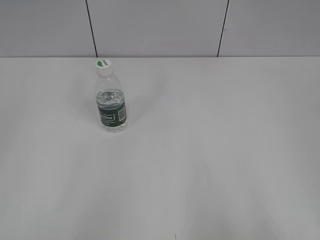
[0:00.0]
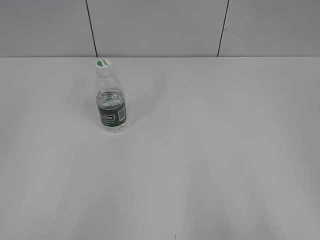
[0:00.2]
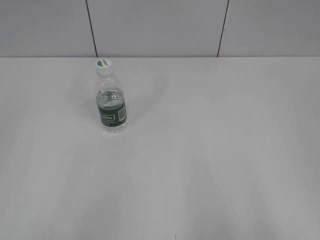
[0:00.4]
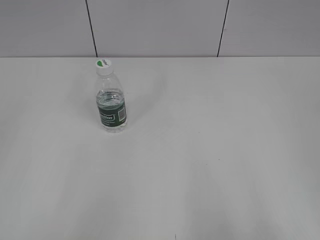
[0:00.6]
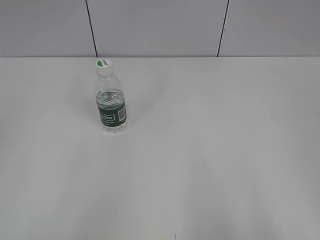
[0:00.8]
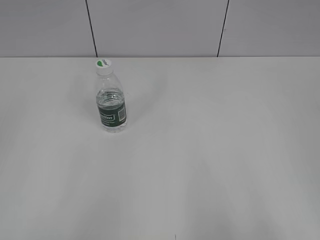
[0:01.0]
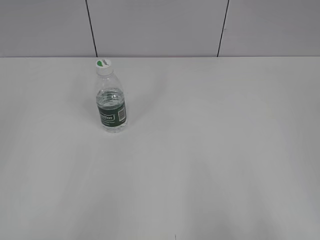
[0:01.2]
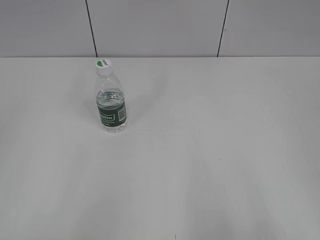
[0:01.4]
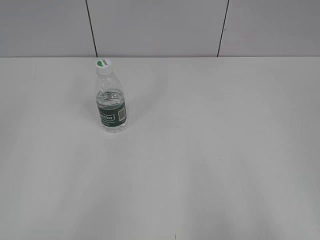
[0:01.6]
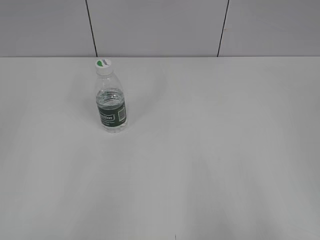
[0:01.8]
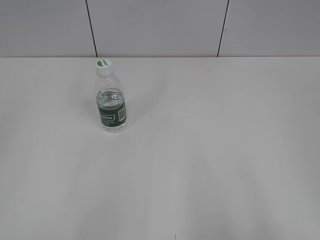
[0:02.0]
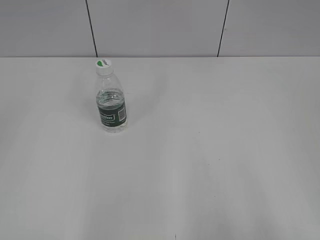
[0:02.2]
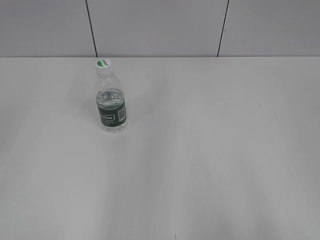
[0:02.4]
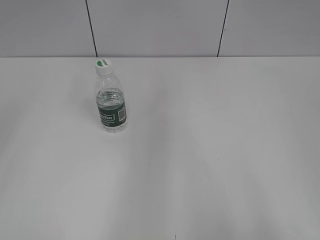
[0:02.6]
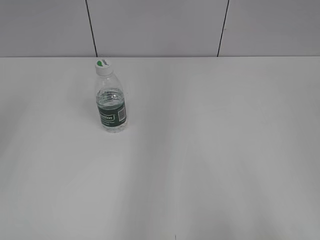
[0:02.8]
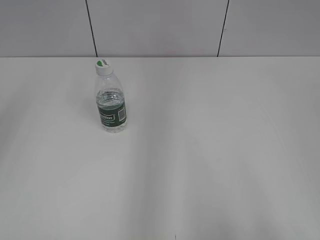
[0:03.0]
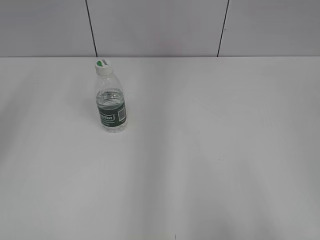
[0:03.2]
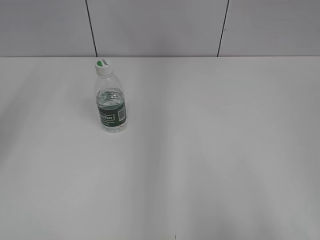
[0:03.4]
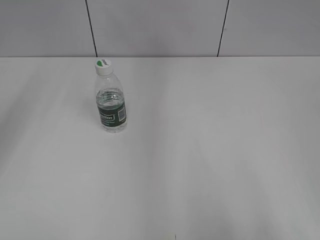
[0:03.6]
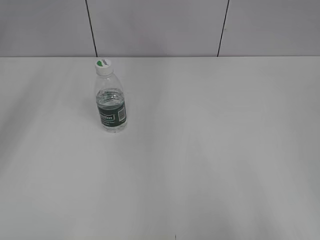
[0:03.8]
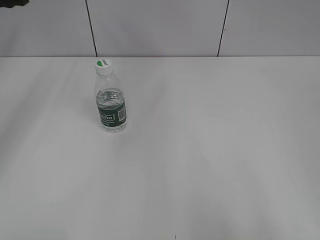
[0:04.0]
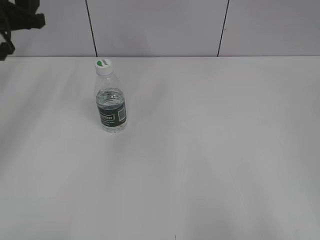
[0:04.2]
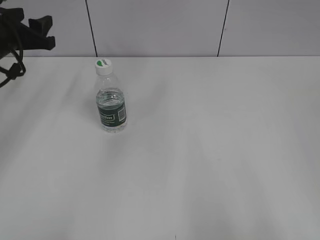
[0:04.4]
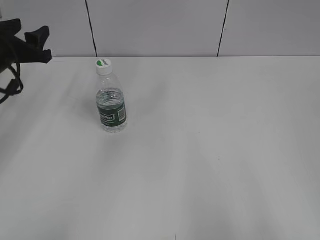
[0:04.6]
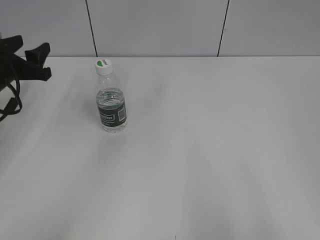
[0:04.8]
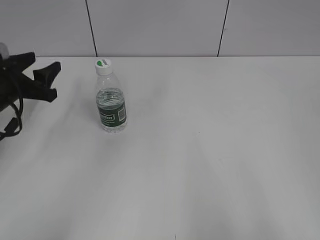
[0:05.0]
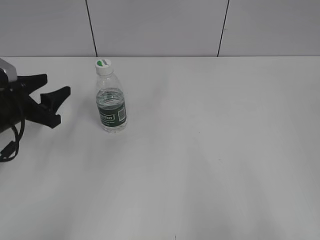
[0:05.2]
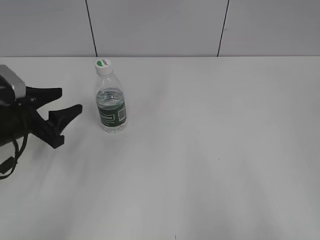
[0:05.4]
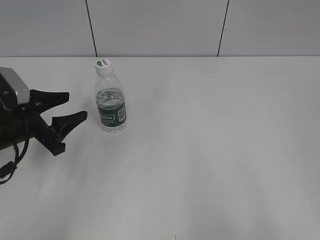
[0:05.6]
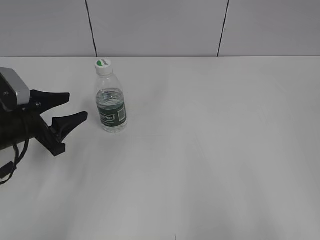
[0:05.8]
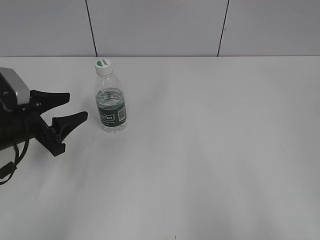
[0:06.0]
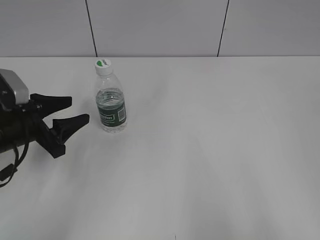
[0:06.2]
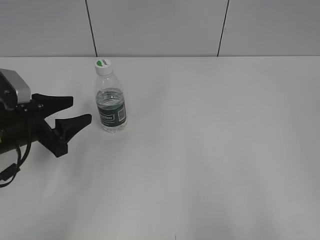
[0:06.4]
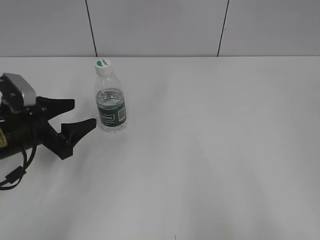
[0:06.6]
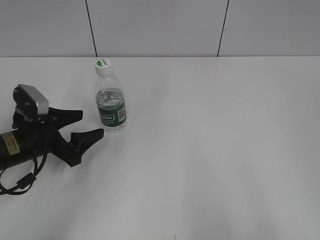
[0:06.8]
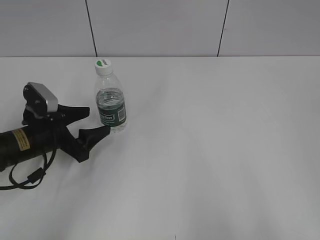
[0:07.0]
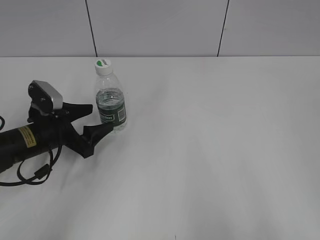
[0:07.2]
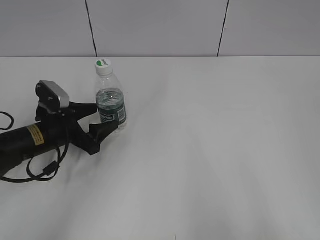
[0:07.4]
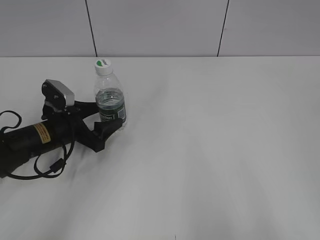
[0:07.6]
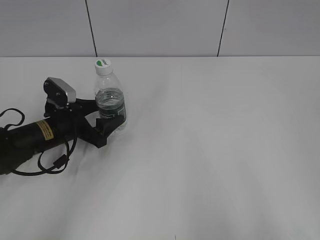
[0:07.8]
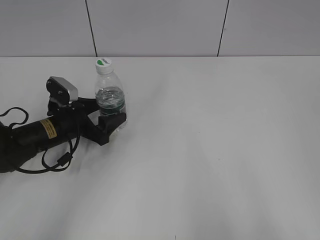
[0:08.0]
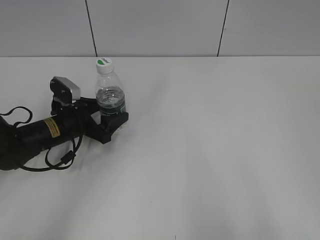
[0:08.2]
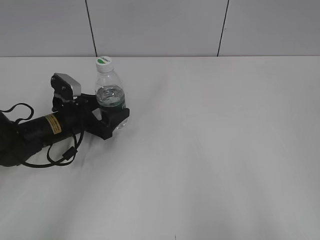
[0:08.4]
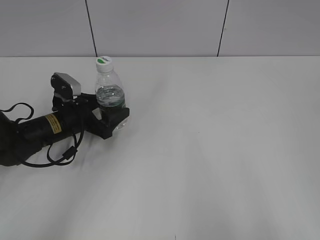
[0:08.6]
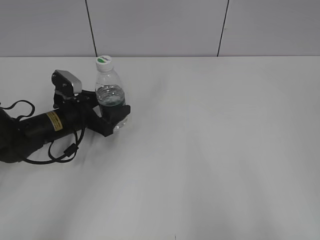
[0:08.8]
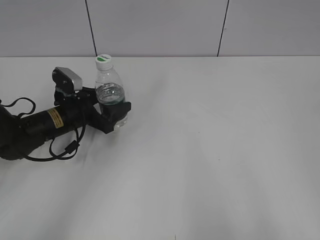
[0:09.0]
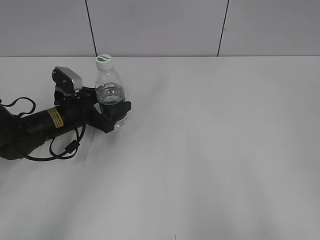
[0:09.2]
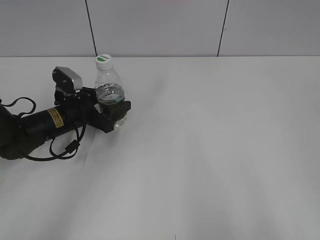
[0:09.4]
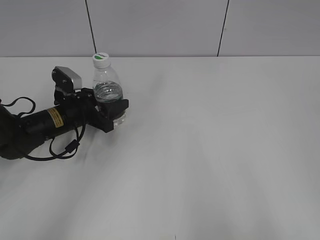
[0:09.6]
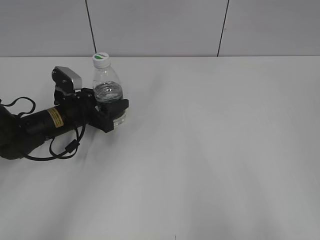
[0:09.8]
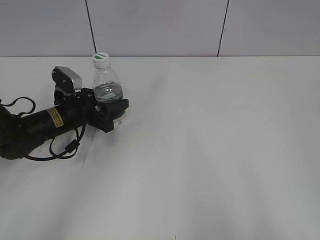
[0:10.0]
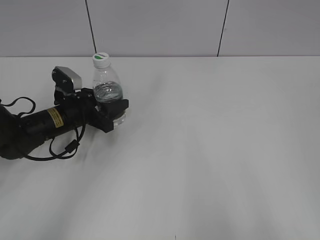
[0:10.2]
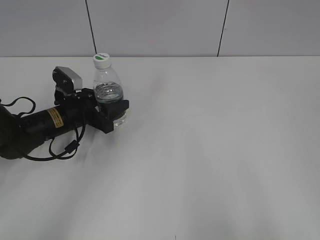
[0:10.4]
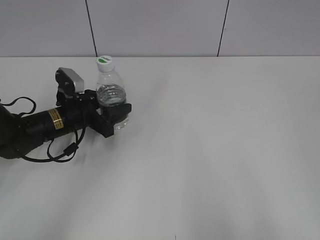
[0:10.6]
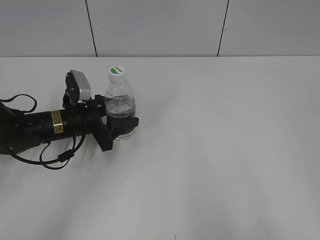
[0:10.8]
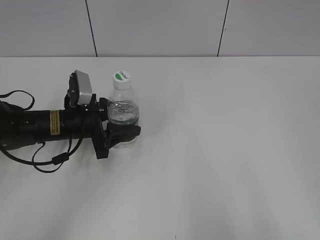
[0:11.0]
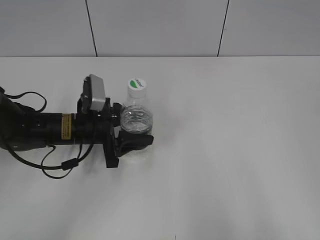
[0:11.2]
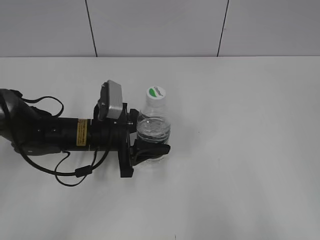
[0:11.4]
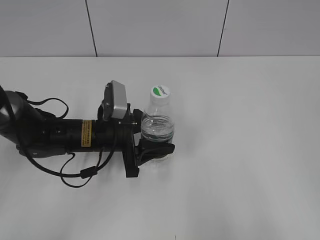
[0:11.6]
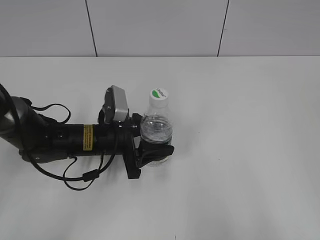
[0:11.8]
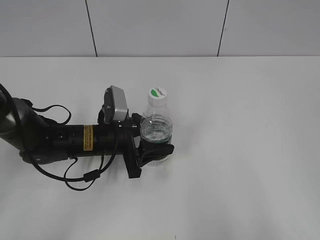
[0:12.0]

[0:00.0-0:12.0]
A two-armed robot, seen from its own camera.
Step, 0:00.0 to 0:10.0: Grasp the bottle and move it to the center of the table with the left gripper.
0:03.0 to 0:04.4: The left gripper moves forward and downward, some 30 cm.
0:04.4 to 0:06.0: The left gripper travels backward and downward by some 15 cm.
0:06.0 to 0:07.6: The left gripper moves downward, some 5 cm, and opens up.
0:07.6 to 0:09.0: The grippers move only a little.
0:09.0 to 0:10.4: The left gripper closes.
0:10.4 to 0:12.0: The left gripper heads to the right and backward, covering some 10 cm.

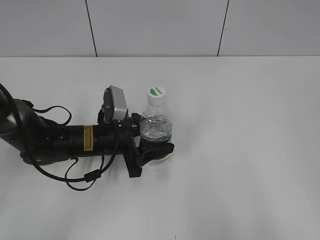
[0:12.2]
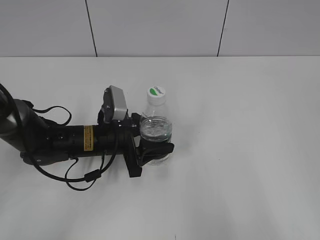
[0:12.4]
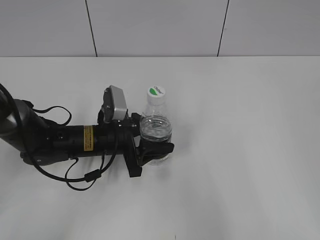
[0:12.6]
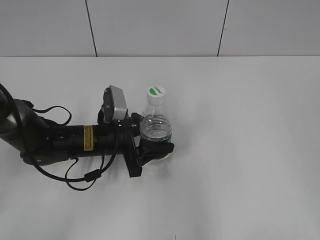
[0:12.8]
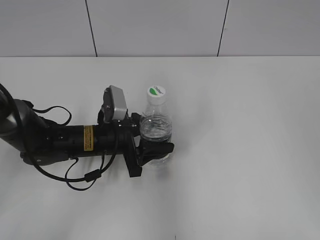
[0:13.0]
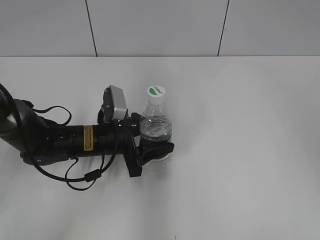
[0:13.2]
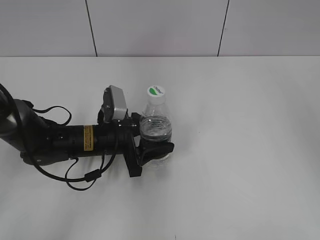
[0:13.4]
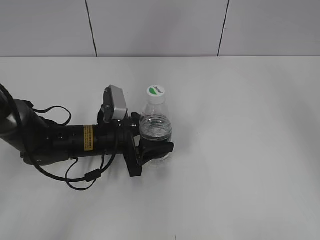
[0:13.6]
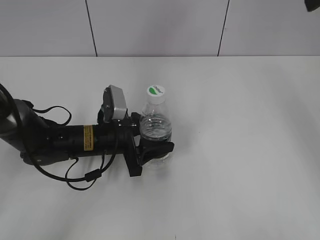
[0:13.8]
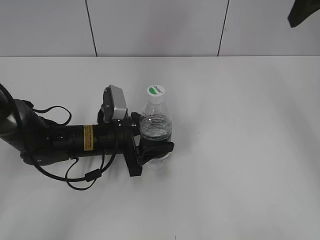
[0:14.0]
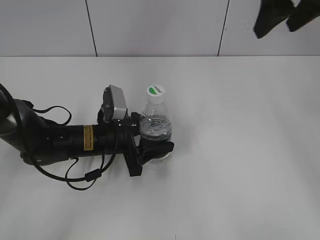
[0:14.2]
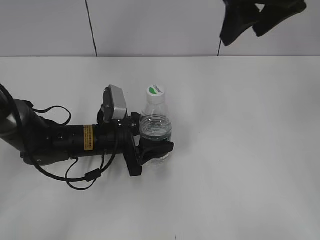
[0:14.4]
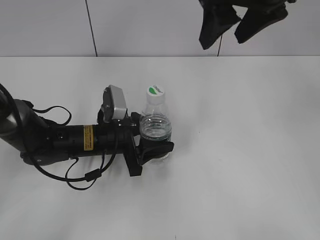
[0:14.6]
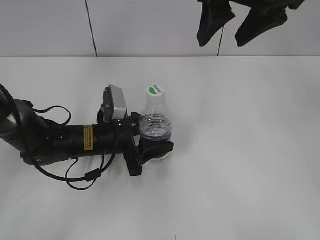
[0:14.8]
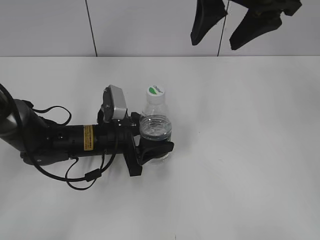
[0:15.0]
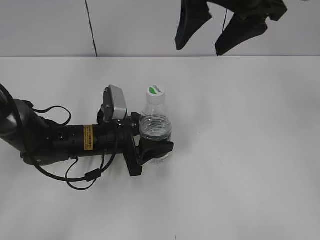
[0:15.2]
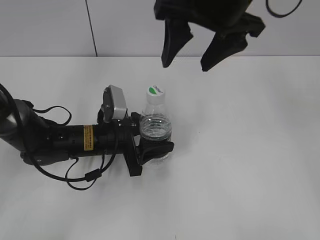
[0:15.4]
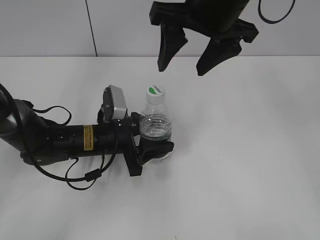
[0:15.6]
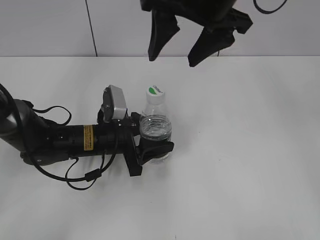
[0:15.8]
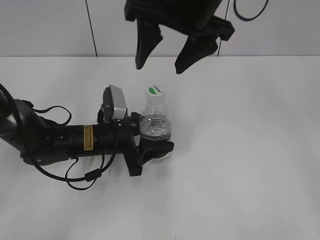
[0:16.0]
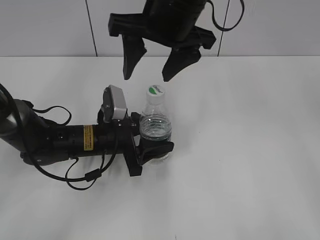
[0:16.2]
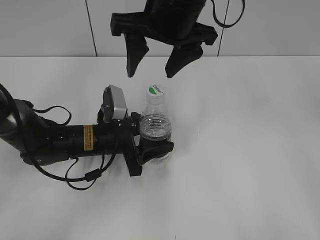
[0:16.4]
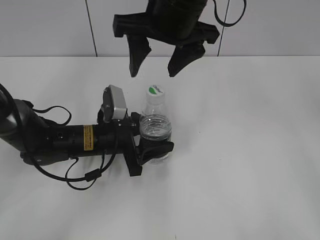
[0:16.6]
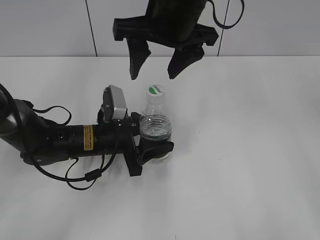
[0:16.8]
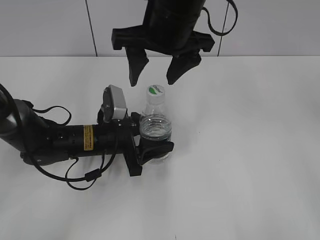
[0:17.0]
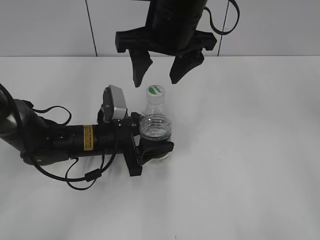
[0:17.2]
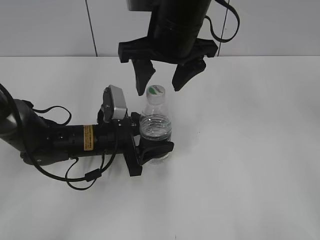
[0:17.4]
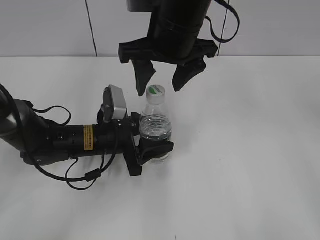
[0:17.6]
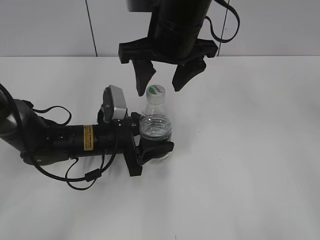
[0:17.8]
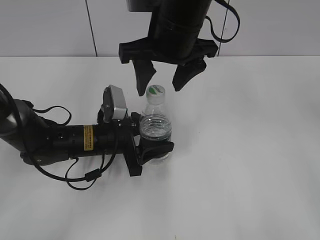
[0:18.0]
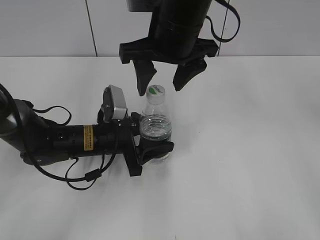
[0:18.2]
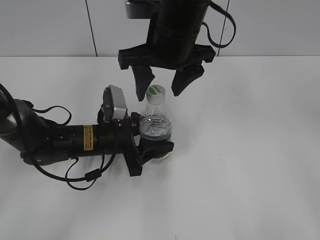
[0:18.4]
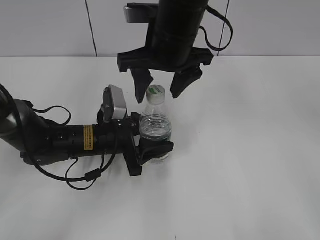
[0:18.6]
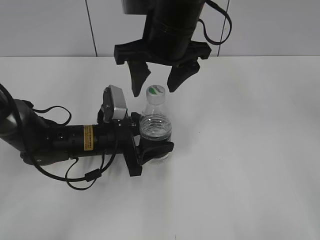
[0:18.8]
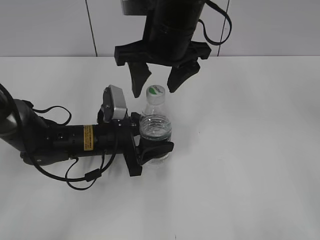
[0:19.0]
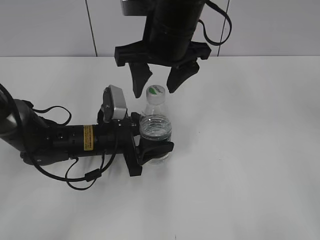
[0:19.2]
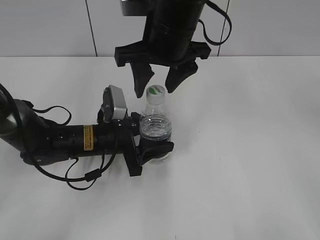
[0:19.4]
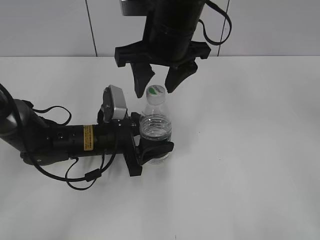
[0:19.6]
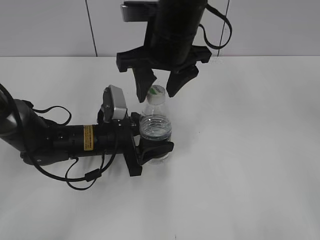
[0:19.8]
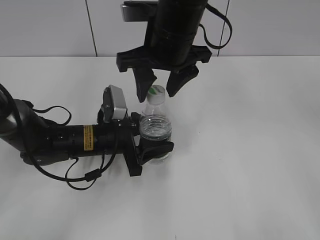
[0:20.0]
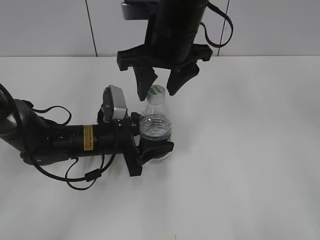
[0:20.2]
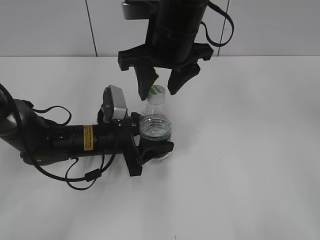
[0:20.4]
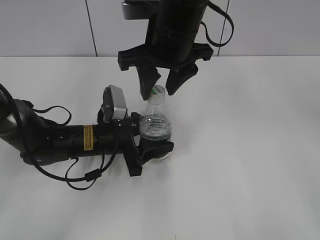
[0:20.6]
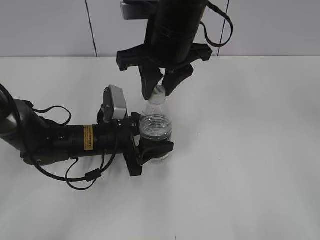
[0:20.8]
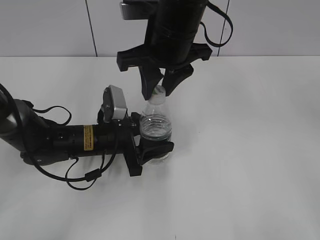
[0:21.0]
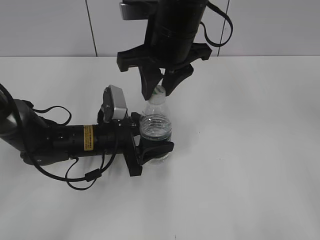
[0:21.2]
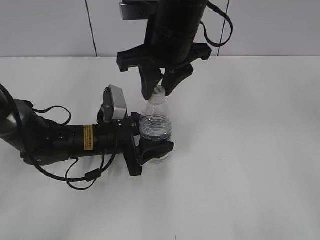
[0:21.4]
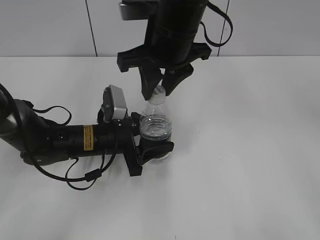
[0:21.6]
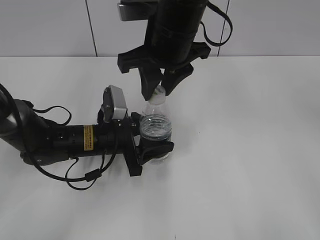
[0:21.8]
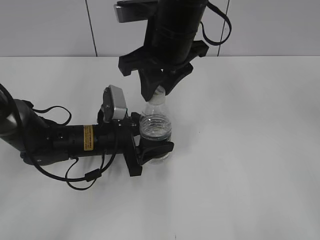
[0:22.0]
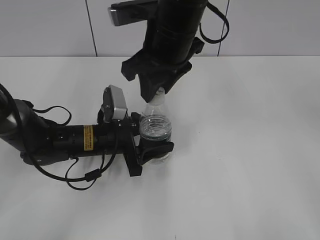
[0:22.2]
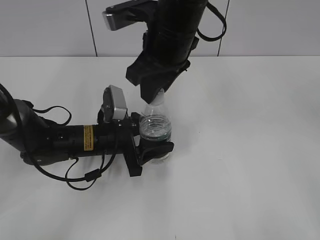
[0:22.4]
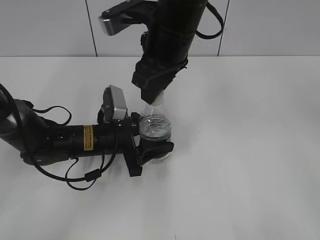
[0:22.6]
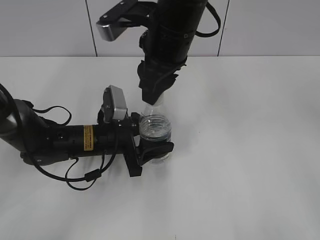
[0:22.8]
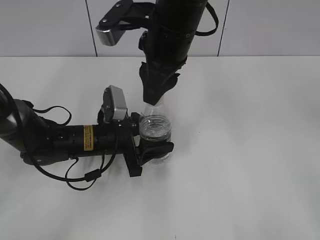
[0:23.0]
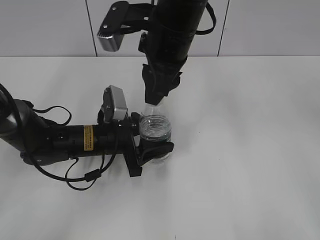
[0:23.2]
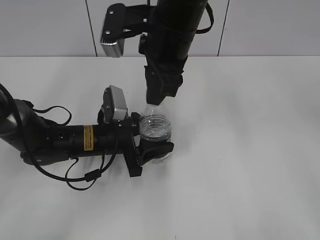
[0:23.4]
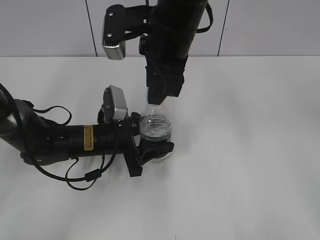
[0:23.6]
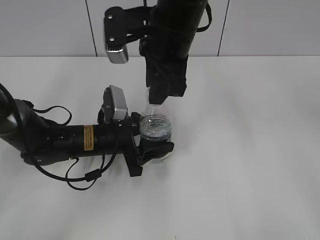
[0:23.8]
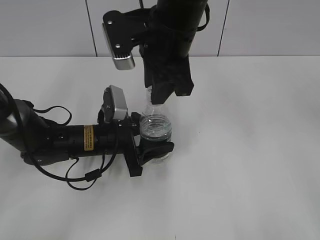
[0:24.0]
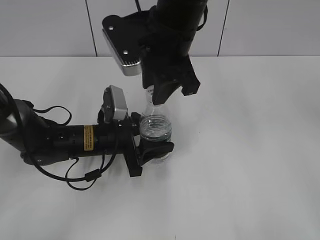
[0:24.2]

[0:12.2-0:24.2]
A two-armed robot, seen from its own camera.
0:12.2 to 0:13.8: The right gripper moves forward, some 35 cm.
0:13.8 to 0:15.2: The right gripper goes about 15 cm to the left.
0:15.2 to 0:16.6: The right gripper is displaced to the left by roughly 5 cm.
0:16.6 to 0:19.8: The grippers move only a little.
0:19.8 to 0:21.2: The right gripper closes.
